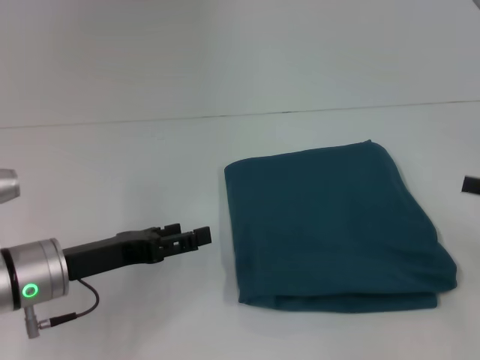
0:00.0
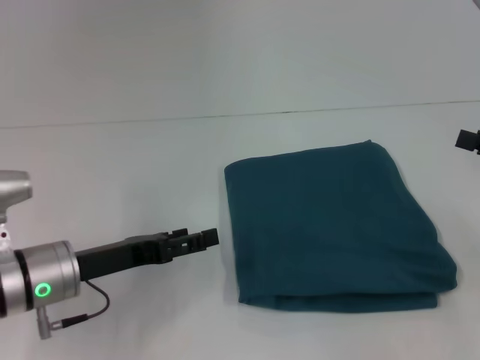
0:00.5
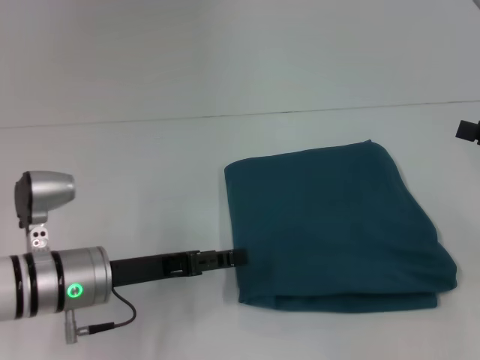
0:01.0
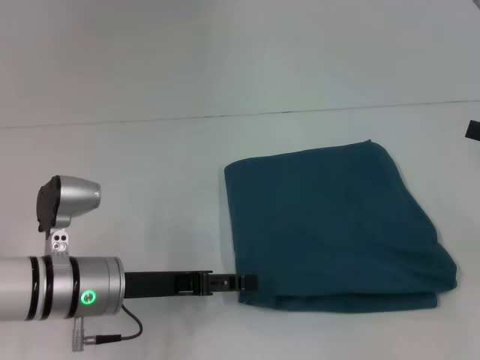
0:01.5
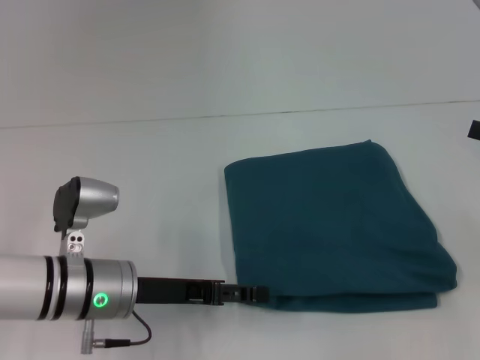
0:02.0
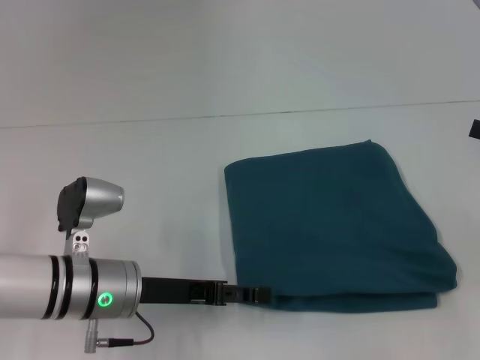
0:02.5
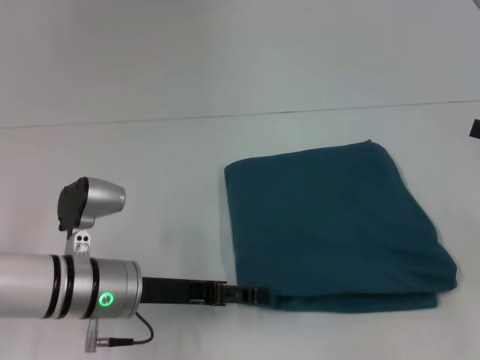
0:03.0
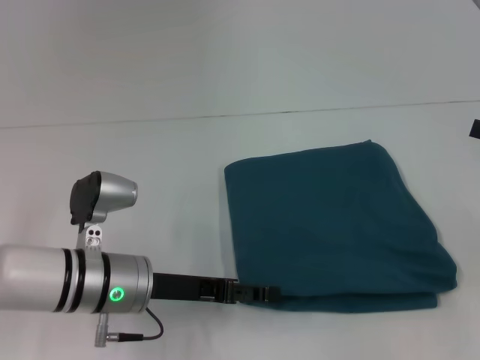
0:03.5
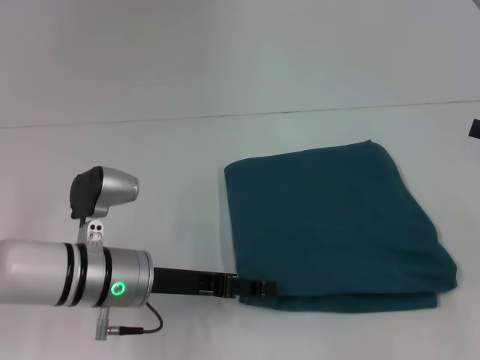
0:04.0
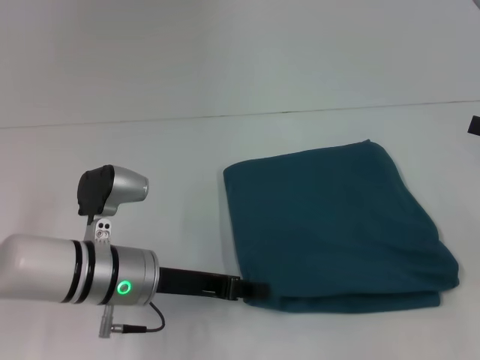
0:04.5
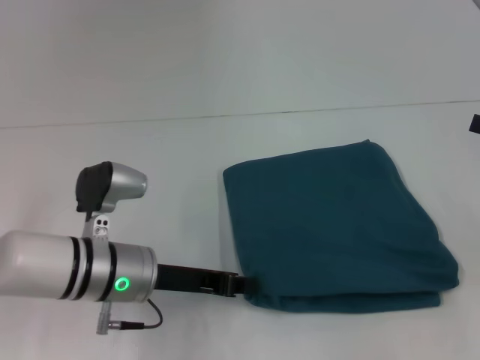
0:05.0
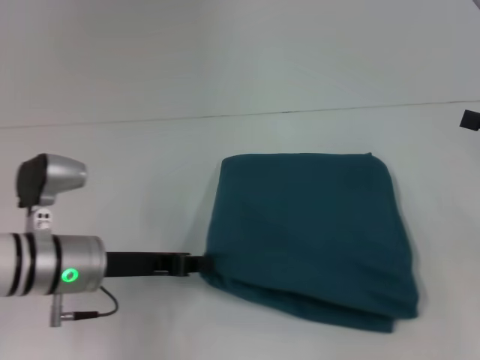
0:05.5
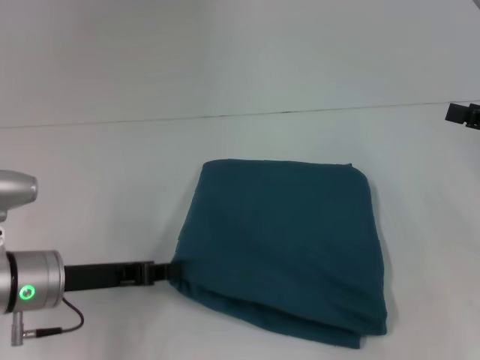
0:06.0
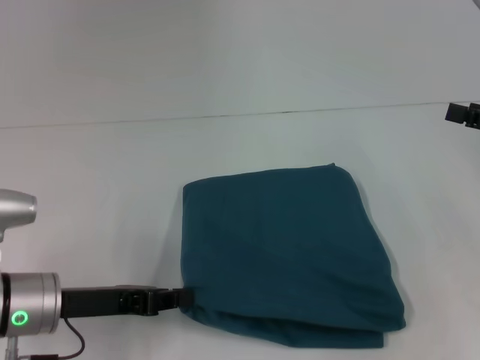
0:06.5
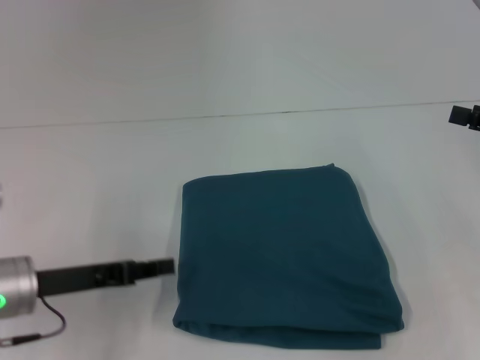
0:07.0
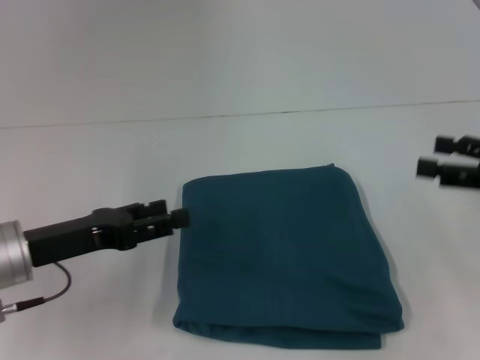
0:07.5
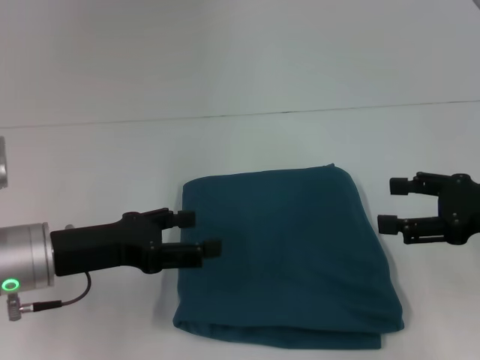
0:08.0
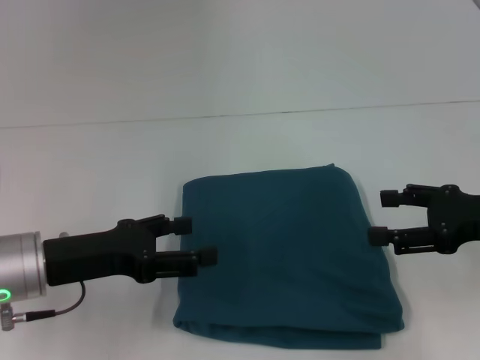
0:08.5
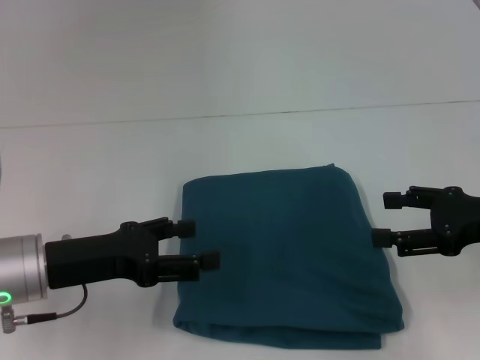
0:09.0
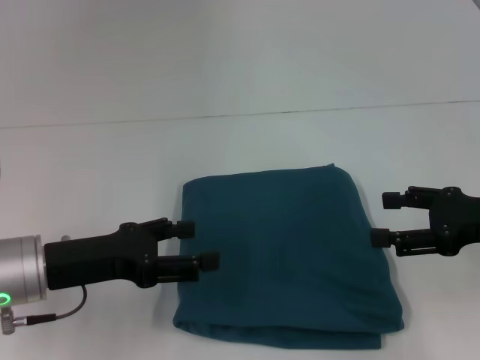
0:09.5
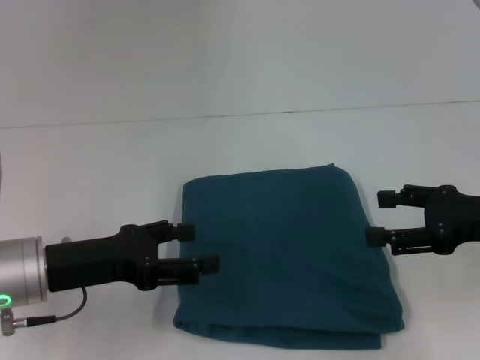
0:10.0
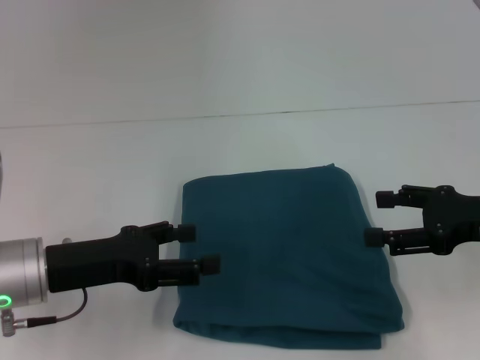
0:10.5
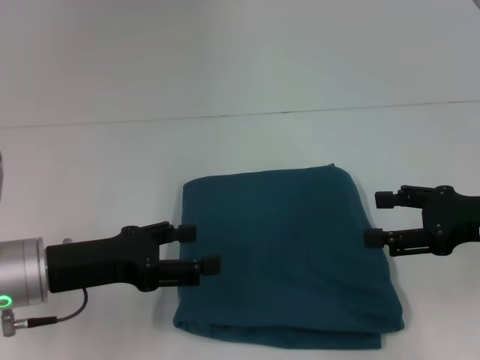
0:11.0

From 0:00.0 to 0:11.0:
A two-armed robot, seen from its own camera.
From 0:00.0 to 0:02.0: The left gripper travels to the right by about 5 cm.
From 0:02.0 to 0:03.5: There are only small adjustments of the grippers.
From 0:03.5 to 0:05.5: The left gripper closes its fingers.
From 0:05.5 to 0:07.5: The left gripper heads to the left, covering roughly 5 cm, and opens up.
From 0:07.5 to 0:09.0: The left gripper opens its fingers.
From 0:09.0 to 0:11.0: The two grippers keep their place.

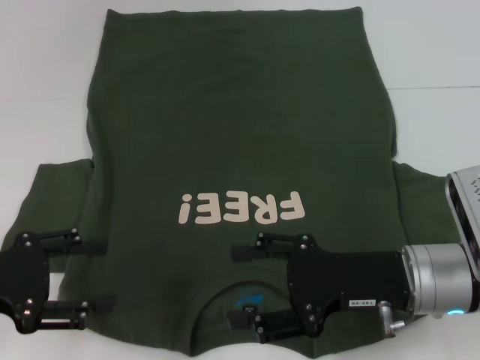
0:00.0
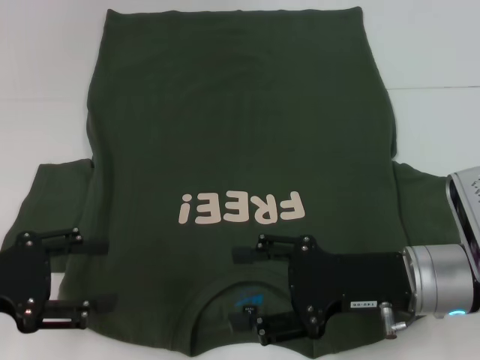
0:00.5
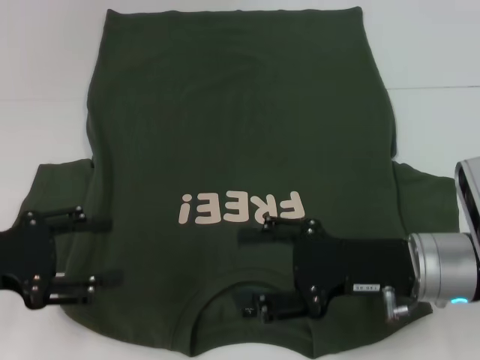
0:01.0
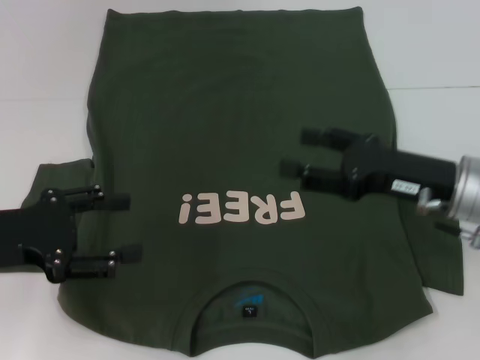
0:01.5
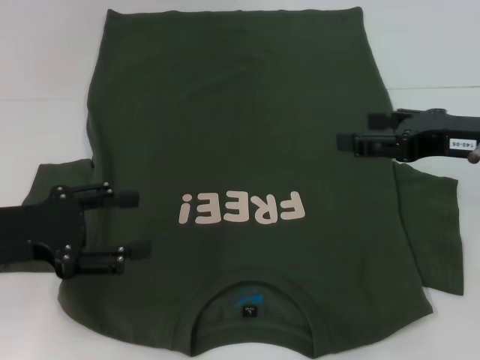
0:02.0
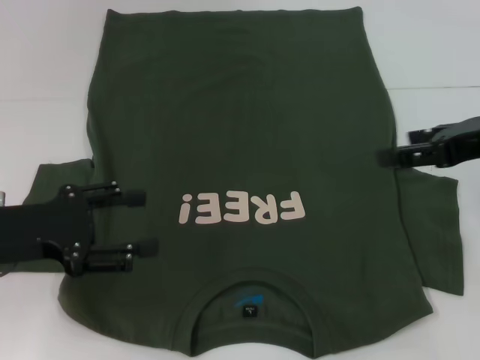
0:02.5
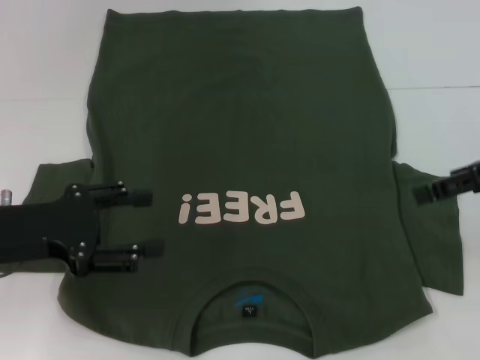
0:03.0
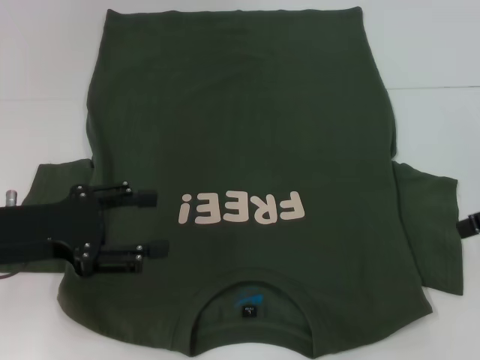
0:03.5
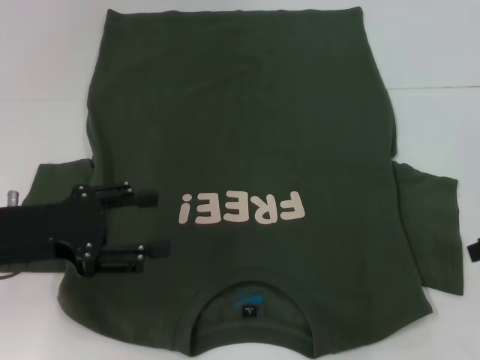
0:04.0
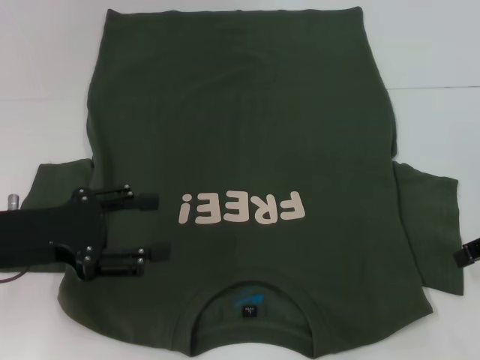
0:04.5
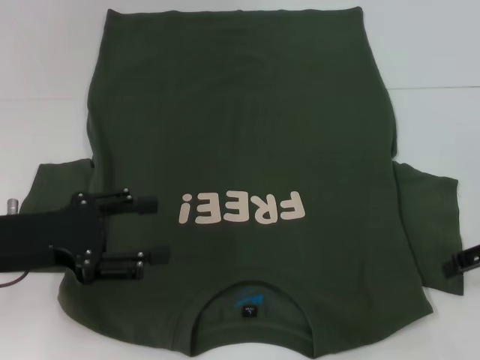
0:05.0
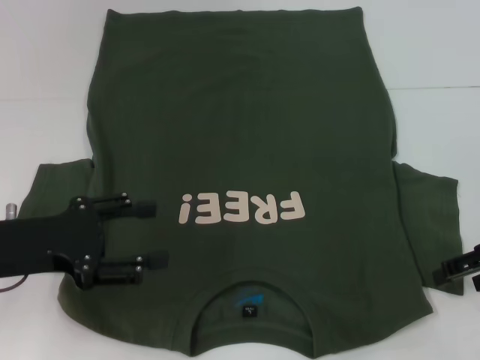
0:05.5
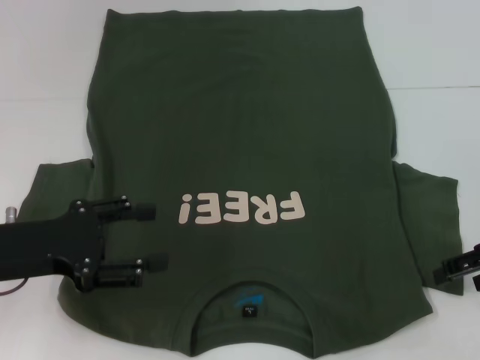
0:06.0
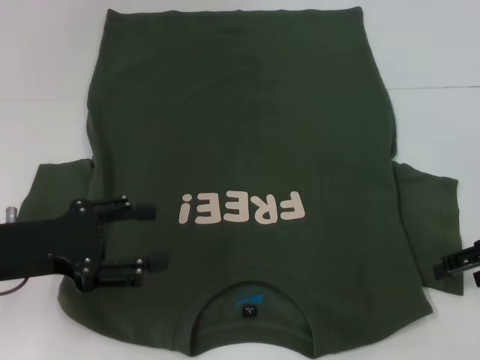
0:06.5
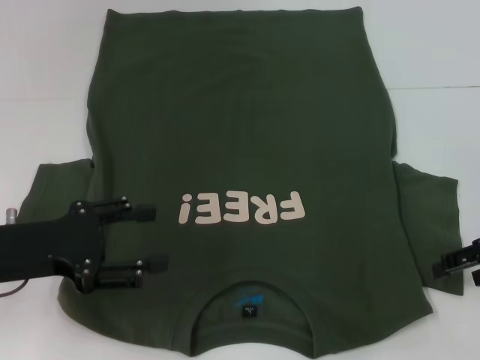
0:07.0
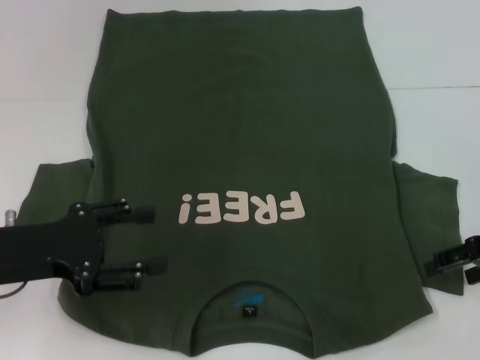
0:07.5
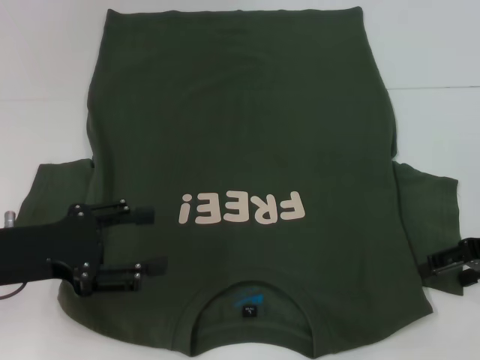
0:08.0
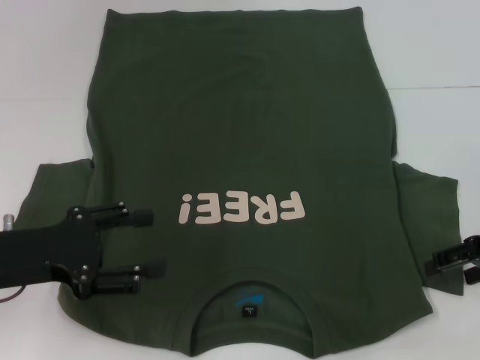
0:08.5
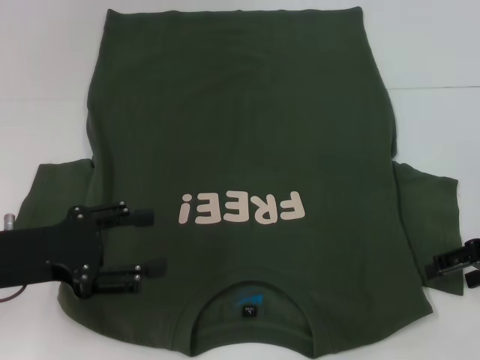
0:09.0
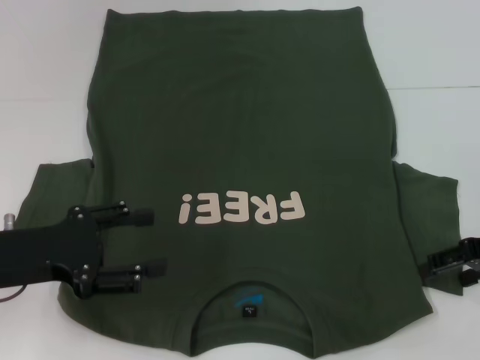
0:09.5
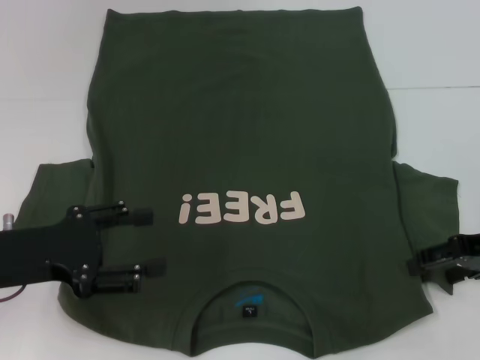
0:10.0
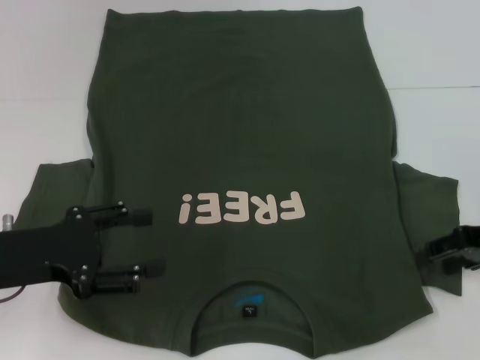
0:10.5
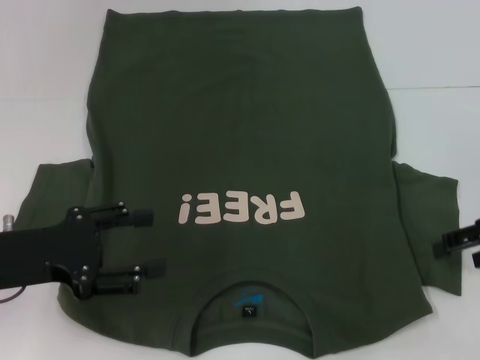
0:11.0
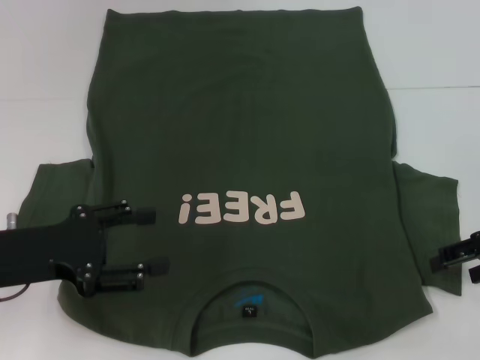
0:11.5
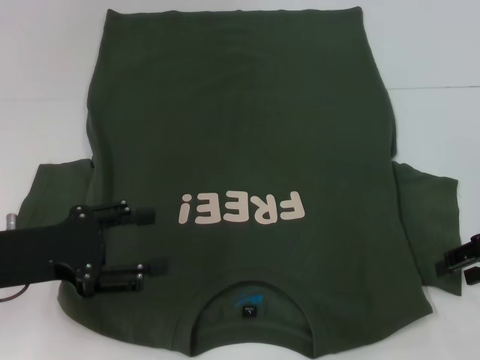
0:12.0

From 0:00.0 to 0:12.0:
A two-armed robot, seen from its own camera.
From 0:00.0 to 0:02.0: The right gripper shifts roughly 10 cm upward and to the right.
From 0:02.0 to 0:04.0: The right gripper is displaced to the right by roughly 10 cm.
From 0:04.0 to 0:08.0: The grippers stay close to where they were, moving slightly.
From 0:08.0 to 0:10.0: Both grippers stay put.
From 0:10.0 to 0:12.0: The grippers move only a little.

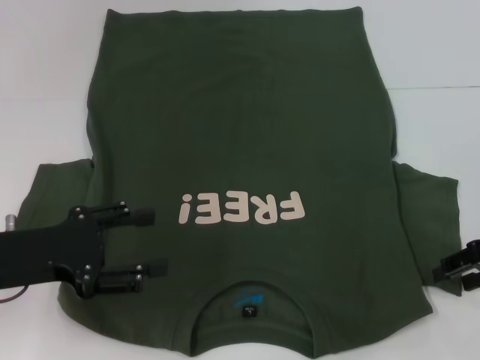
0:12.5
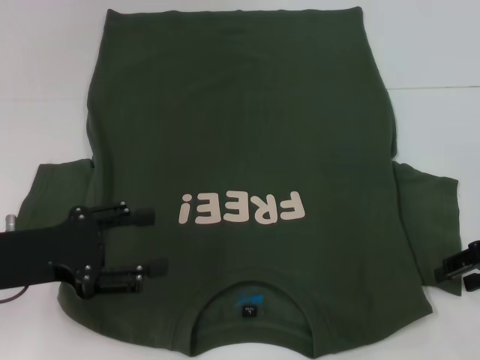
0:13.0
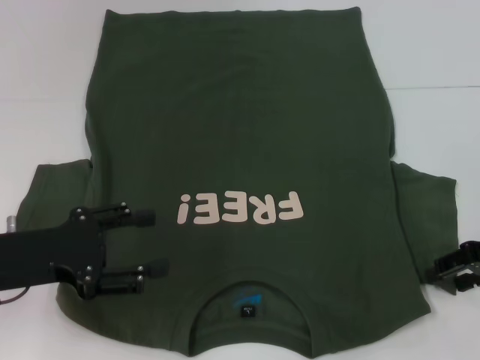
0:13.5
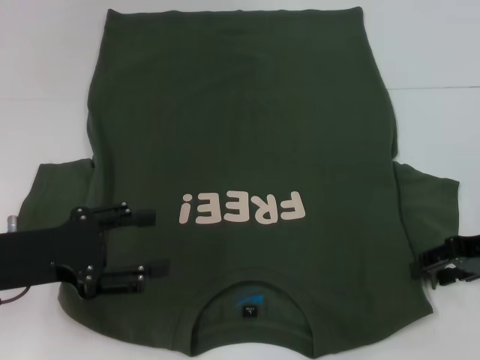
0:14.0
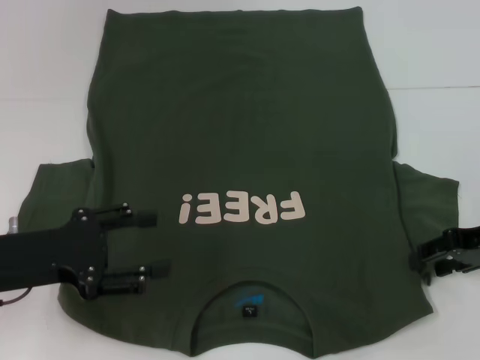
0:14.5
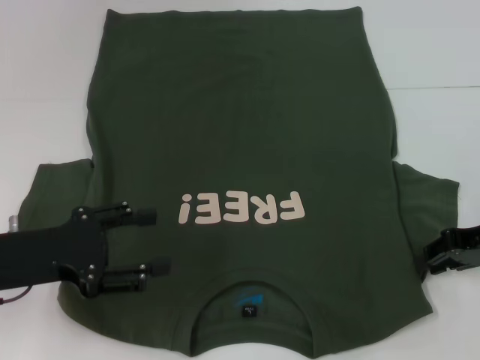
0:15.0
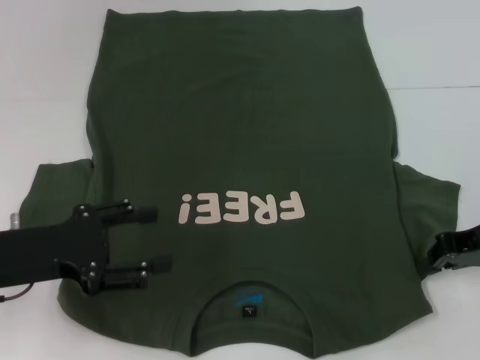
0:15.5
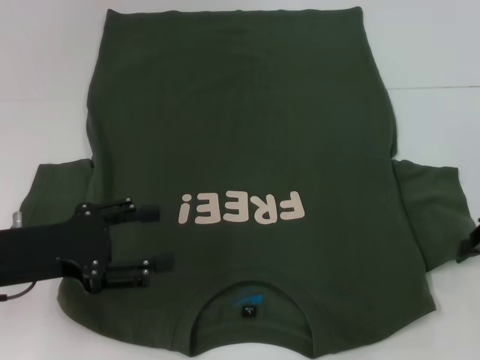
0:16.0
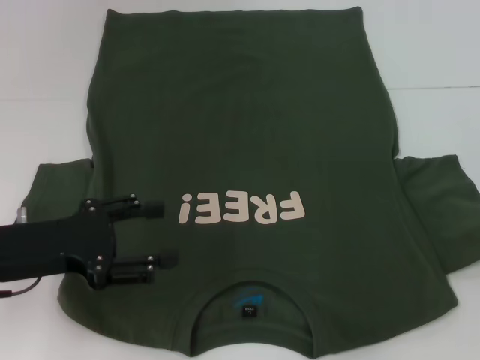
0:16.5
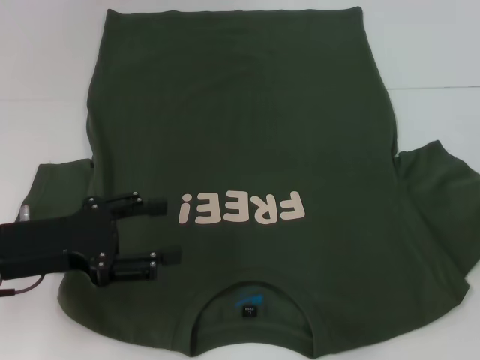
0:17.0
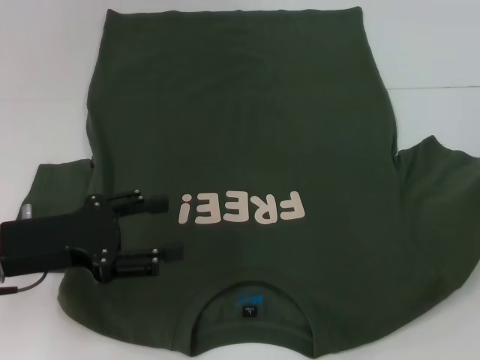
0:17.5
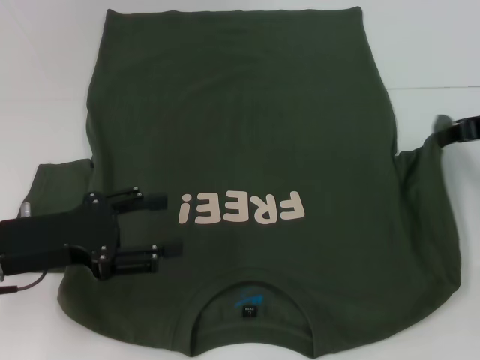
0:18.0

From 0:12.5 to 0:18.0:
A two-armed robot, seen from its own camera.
From 0:12.5 to 0:14.5: The grippers make only small movements.
From 0:14.5 to 0:16.0: The right gripper closes up.
From 0:16.0 to 0:18.0: The right gripper shifts some 10 cm forward and upward.
